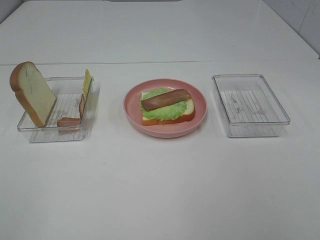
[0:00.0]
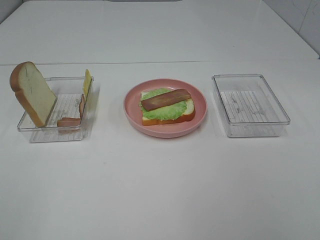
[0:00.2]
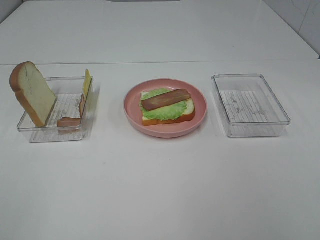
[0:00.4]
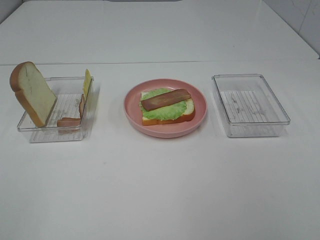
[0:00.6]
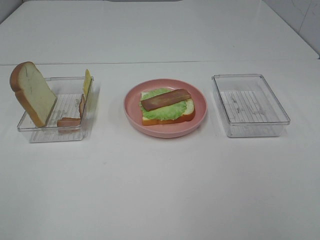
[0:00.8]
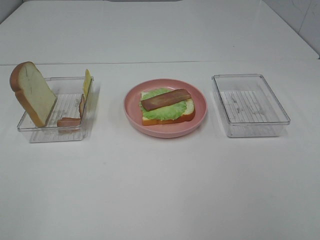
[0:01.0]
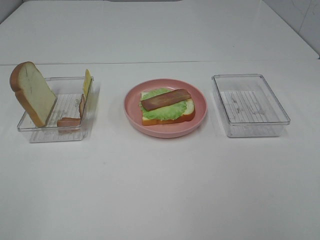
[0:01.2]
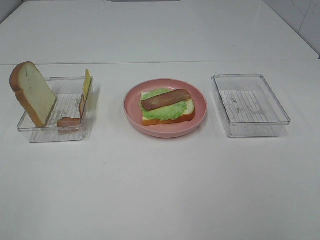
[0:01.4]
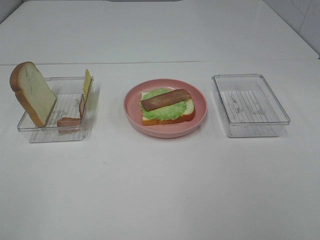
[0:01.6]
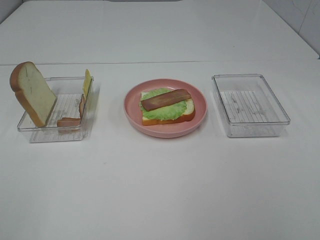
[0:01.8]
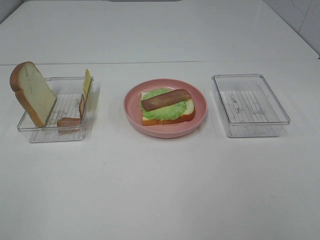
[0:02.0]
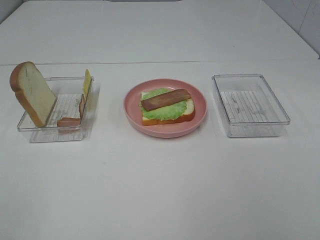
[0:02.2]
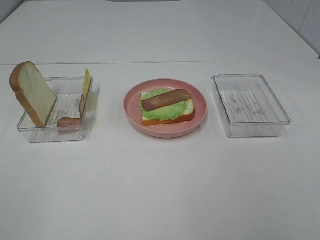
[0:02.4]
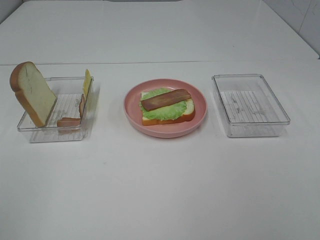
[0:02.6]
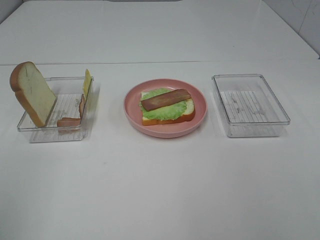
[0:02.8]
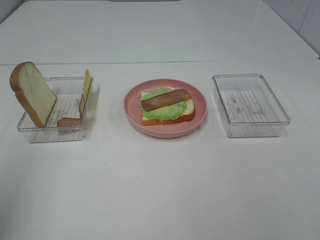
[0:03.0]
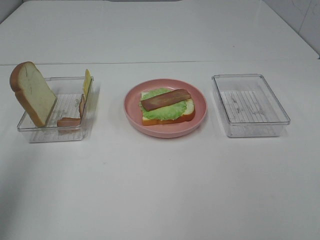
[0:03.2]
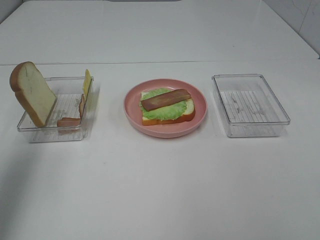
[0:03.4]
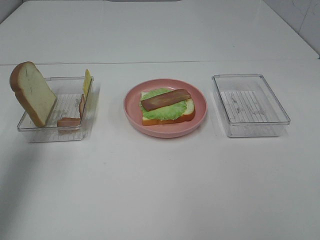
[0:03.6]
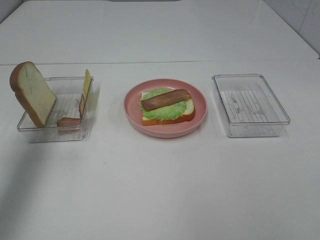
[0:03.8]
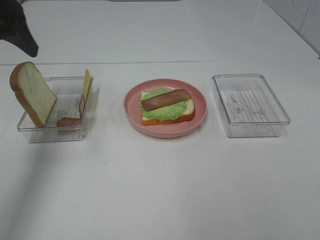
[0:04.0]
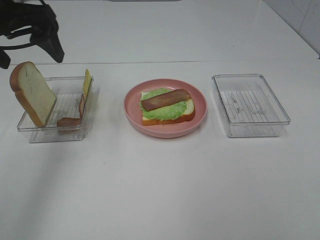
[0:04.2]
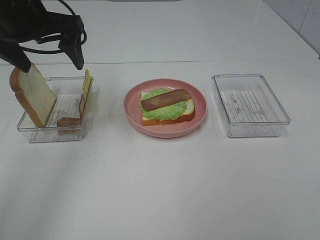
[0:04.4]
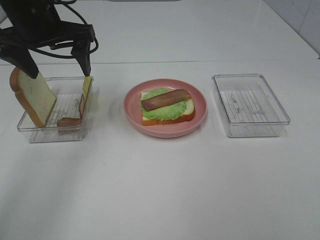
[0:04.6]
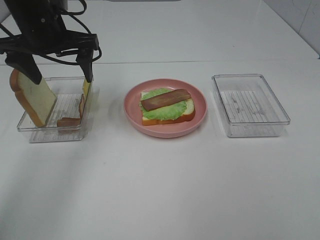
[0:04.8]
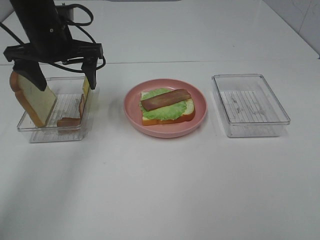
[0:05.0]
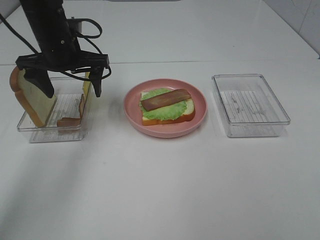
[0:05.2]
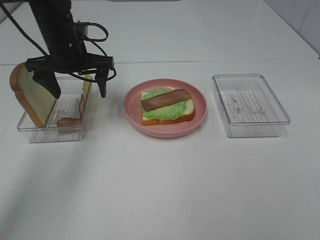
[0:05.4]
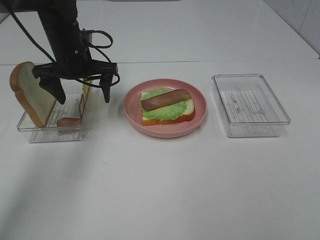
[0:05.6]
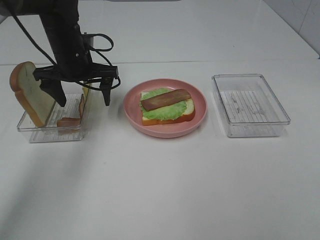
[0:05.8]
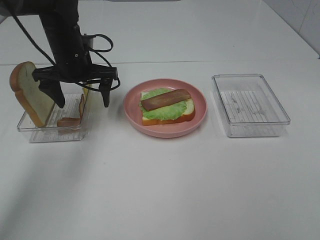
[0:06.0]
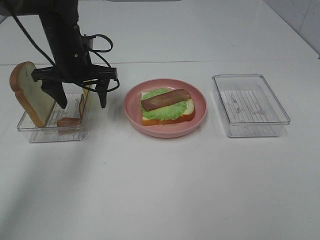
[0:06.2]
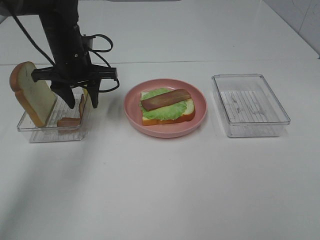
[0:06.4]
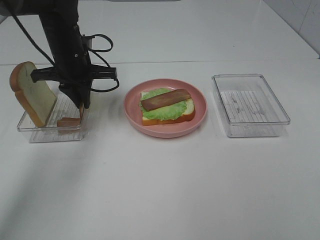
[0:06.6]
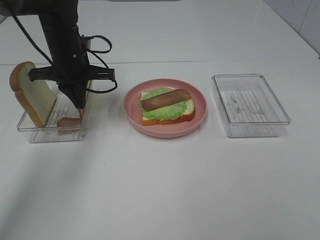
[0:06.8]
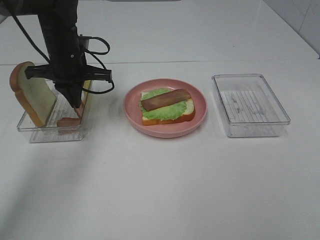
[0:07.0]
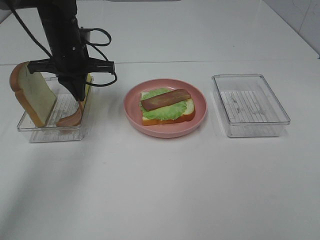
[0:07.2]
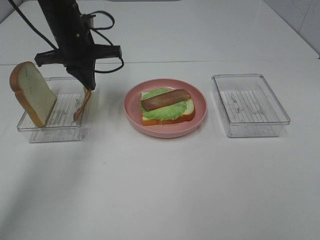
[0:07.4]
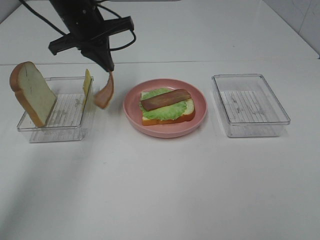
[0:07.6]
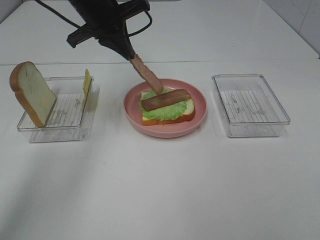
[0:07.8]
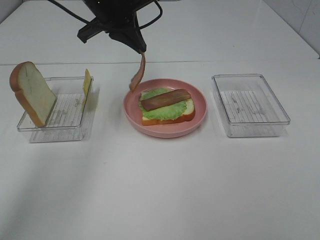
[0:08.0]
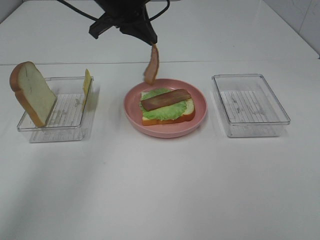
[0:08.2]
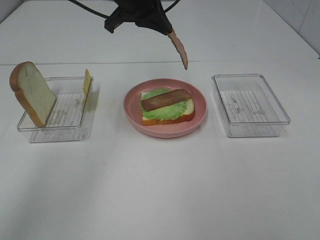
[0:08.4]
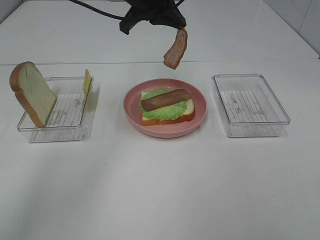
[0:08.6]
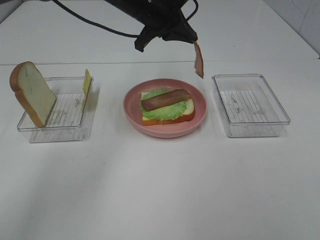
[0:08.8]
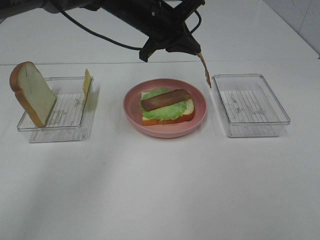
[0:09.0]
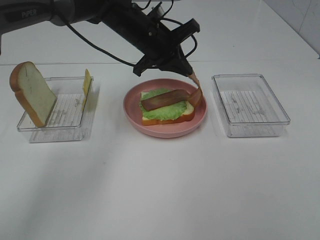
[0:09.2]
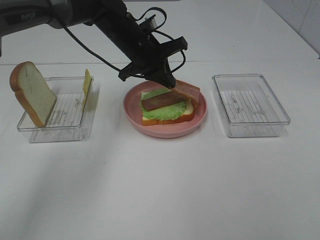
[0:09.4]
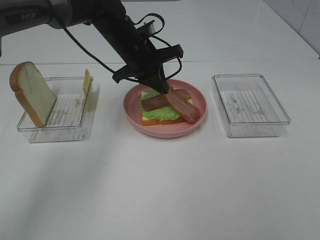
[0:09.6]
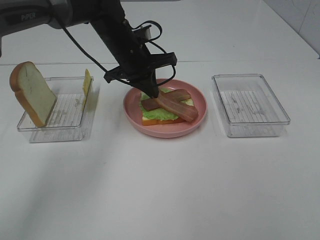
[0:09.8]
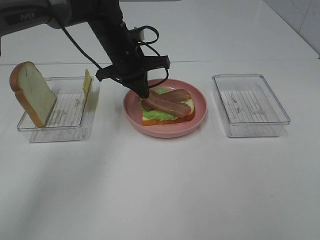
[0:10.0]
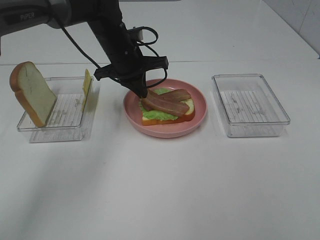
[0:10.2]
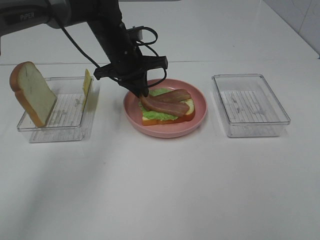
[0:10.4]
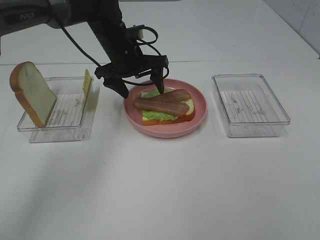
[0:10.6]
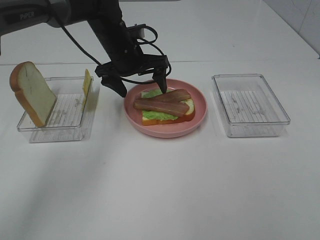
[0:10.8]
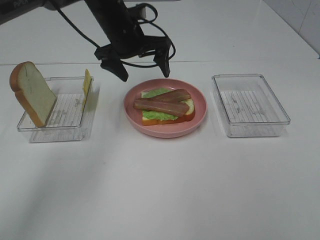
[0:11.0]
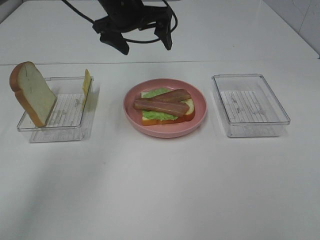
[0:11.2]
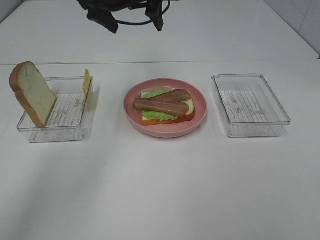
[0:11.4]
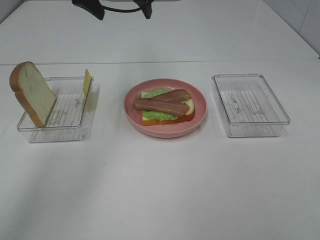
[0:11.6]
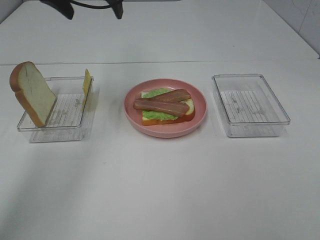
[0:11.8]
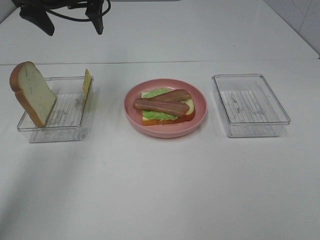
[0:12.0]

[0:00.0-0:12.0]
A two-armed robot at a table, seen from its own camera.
Task of the whole recording: Make sandwiches.
Step, 0.0 to 7.0 s: Left hand:grab the bacon.
Step, 7.2 to 10.8 s: Left hand:place bacon on bacon.
0.0 to 1.6 s: Both grippers stay put.
1.6 to 3.0 s: The left gripper shifts approximately 15 cm forward and upward.
3.0 to 4.4 s: The left gripper heads forward and to the right, covering approximately 30 cm.
4.4 to 6.0 s: The left gripper shifts approximately 15 cm downward and forward.
6.0 to 7.6 s: The left gripper is displaced upward by some 5 cm, and closes its fingers.
7.6 to 9.0 s: The left gripper moves to the right, some 10 cm.
9.0 to 10.4 s: The left gripper is displaced downward by approximately 5 cm.
10.4 to 12.0 s: The left gripper goes about 15 cm upward and to the left, and opens its fingers.

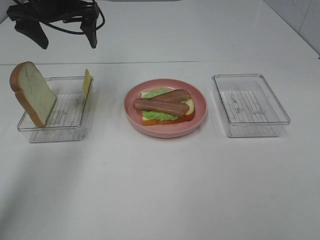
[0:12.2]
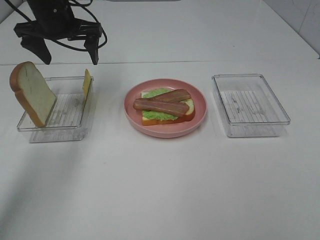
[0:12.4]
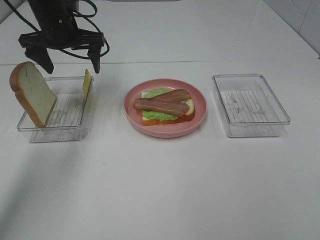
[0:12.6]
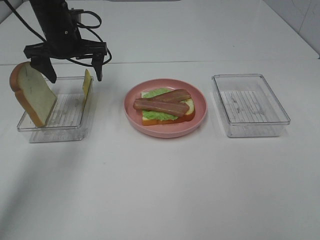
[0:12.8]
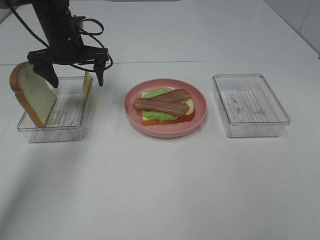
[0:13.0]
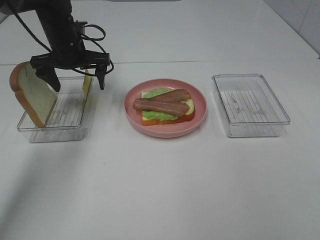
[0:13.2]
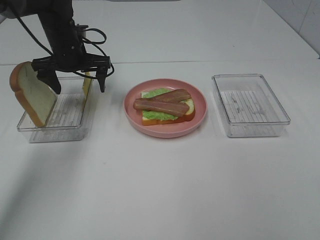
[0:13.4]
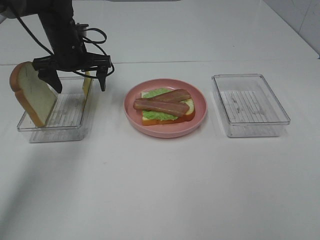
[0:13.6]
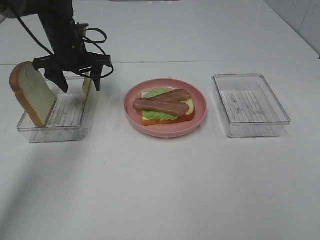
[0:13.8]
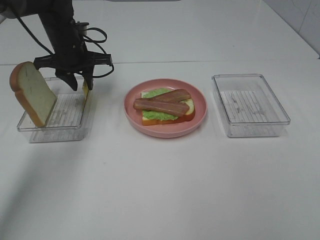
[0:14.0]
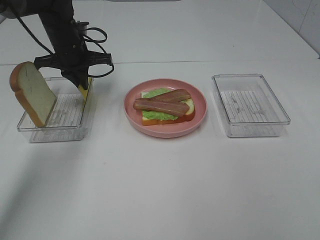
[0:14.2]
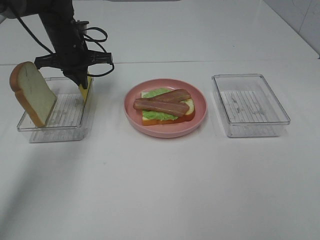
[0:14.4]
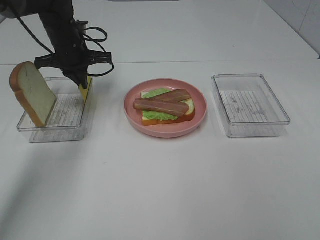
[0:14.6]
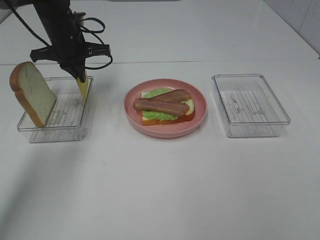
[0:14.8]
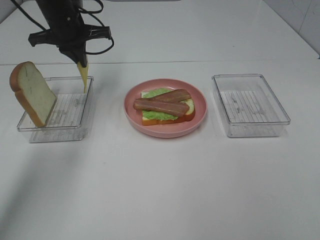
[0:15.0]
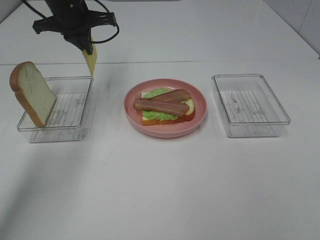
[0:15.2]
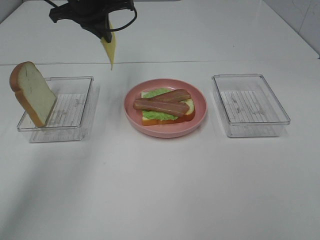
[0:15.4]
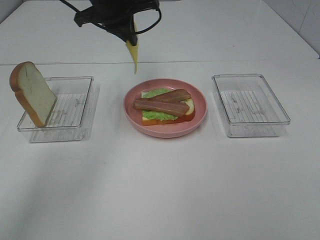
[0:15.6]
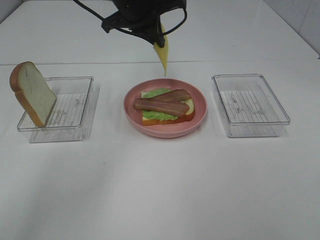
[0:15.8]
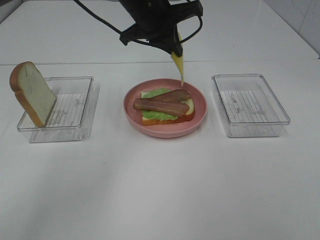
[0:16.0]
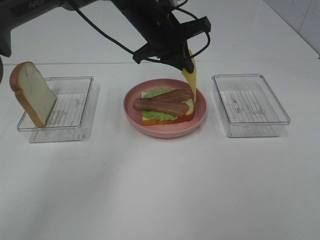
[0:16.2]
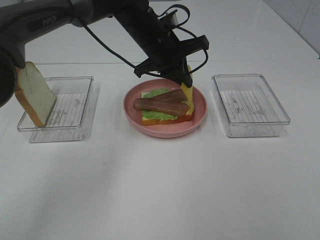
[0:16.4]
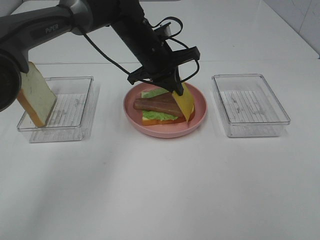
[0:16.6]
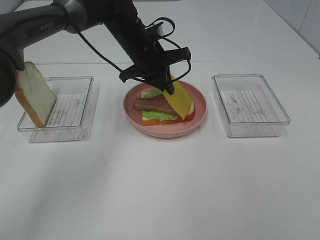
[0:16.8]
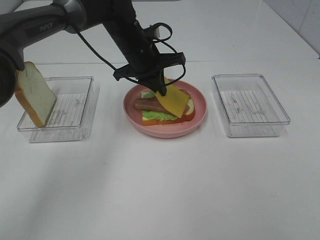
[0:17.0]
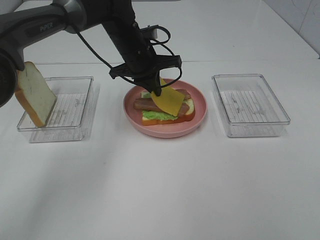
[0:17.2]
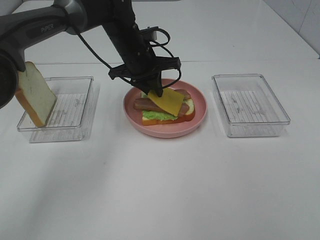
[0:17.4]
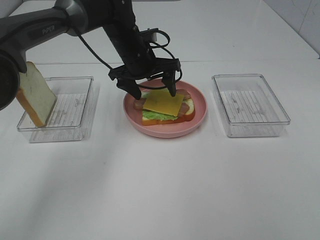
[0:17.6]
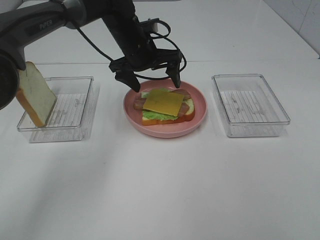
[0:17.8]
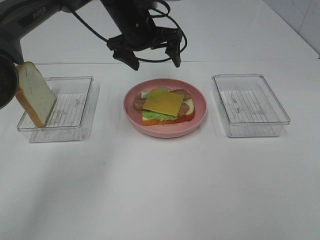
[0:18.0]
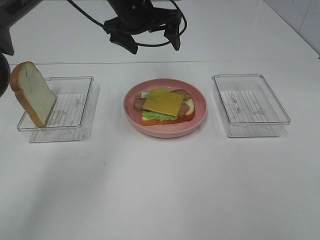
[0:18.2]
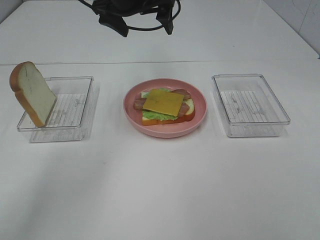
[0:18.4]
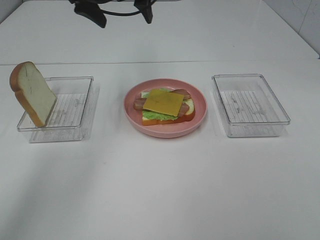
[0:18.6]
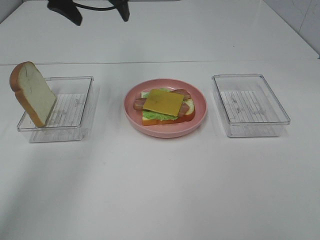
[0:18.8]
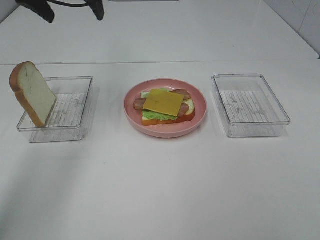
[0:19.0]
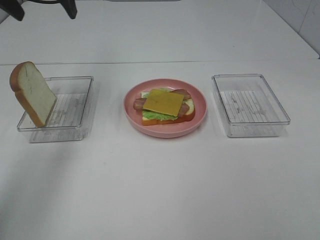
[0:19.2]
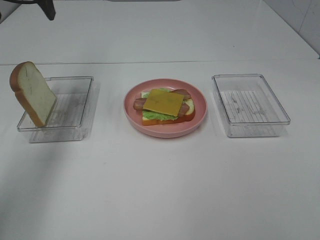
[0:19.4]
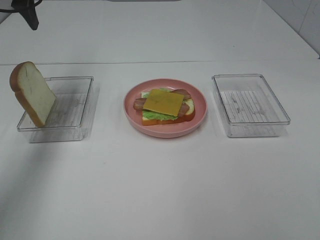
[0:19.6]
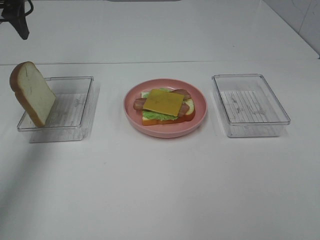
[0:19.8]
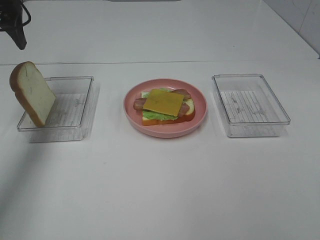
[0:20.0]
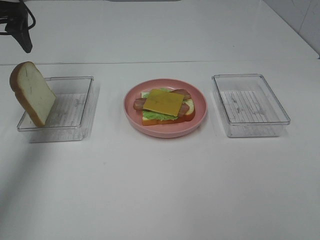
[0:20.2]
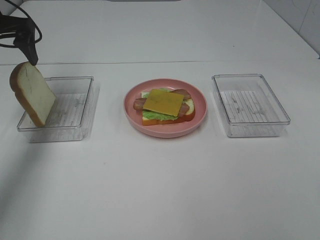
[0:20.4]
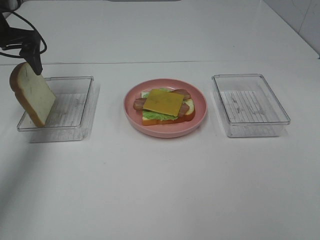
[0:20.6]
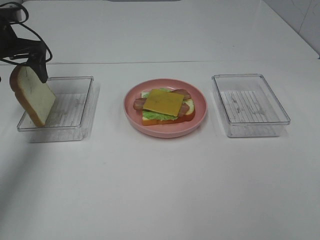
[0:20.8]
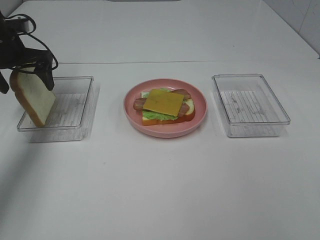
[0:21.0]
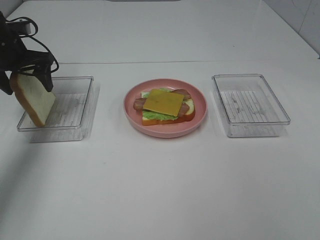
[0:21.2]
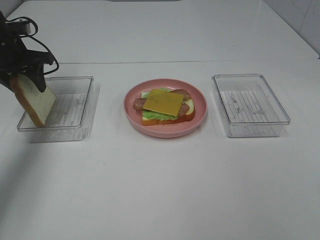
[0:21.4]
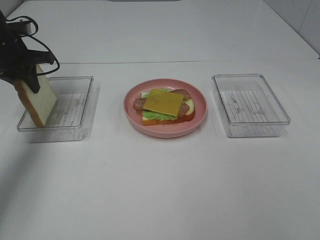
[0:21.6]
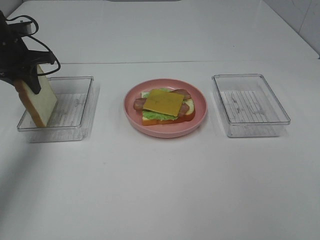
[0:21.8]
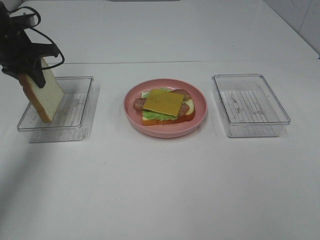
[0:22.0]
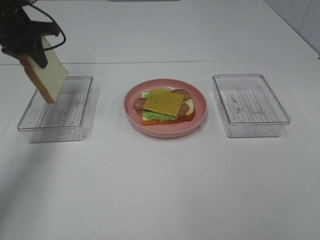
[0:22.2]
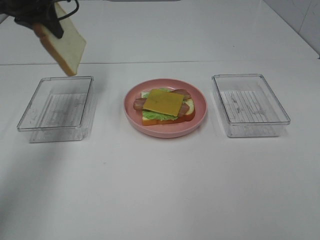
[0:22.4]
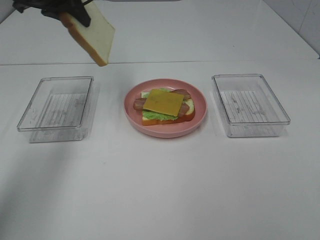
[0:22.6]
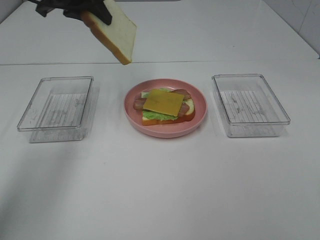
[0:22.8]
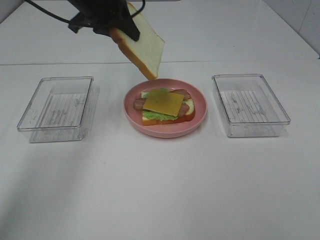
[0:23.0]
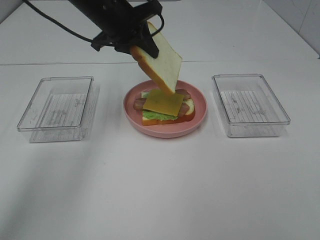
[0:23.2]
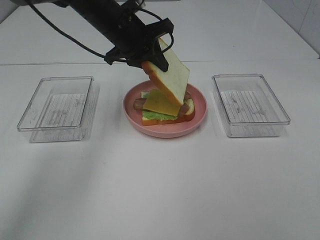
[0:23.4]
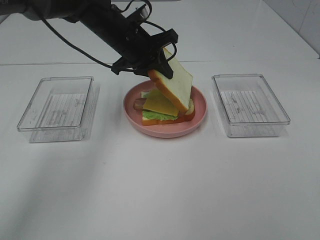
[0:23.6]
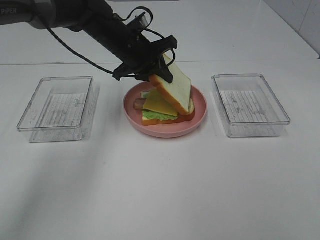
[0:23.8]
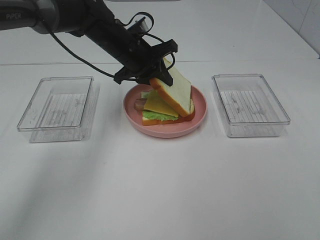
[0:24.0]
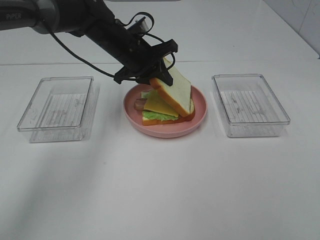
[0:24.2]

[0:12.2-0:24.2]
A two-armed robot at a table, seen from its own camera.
Task of the whole recording: Make sandwiches.
Step, 12.2 to 14.6 s: Left hand:grab the cheese slice.
Step, 14.8 to 17.6 s: Left hand:place the cheese slice on top of the bacon.
Step, 17.8 to 21.6 s: Left hand:grab the bread slice.
12.2 to 13.8 s: The left gripper moves downward, approximately 10 cm.
13.8 to 15.2 s: The left gripper travels upward by about 10 cm, and closes.
15.2 to 16.6 s: The left gripper moves to the right and downward, roughly 15 cm.
16.6 to 18.2 s: The left gripper goes some 10 cm upward, and opens its fingers.
18.2 to 19.8 s: The left gripper goes approximately 25 cm to the left.
19.8 to 21.2 s: The left gripper heads downward, covering some 15 cm.
21.2 to 22.6 s: The left gripper travels upward and to the right by roughly 15 cm, and closes its fingers.
22.6 to 24.2 s: The left gripper goes about 20 cm downward and to the right.
